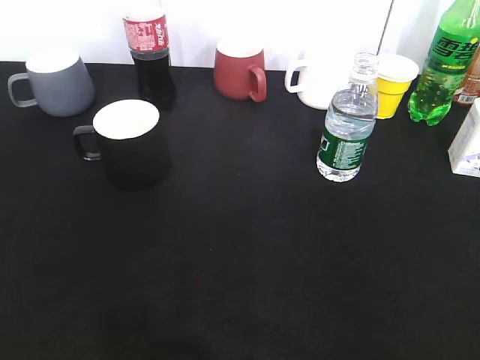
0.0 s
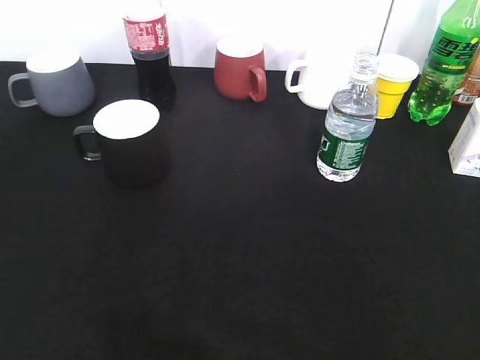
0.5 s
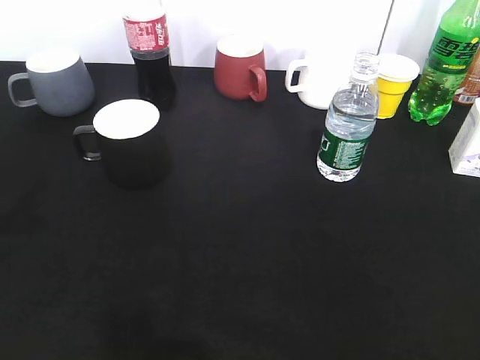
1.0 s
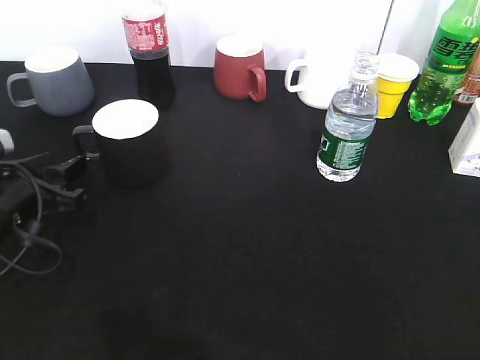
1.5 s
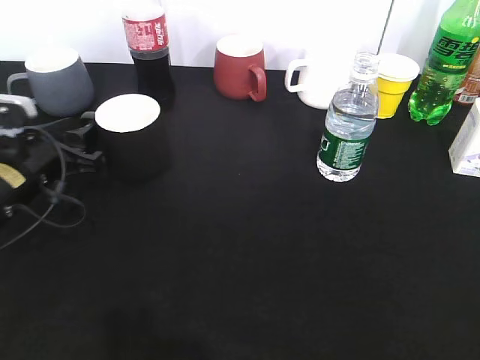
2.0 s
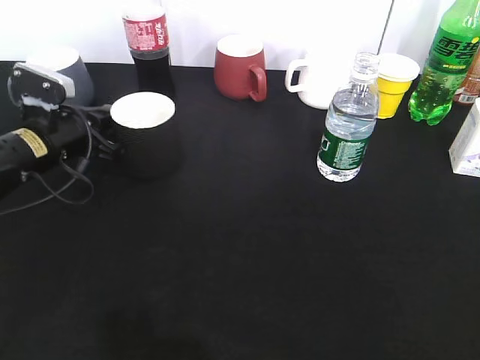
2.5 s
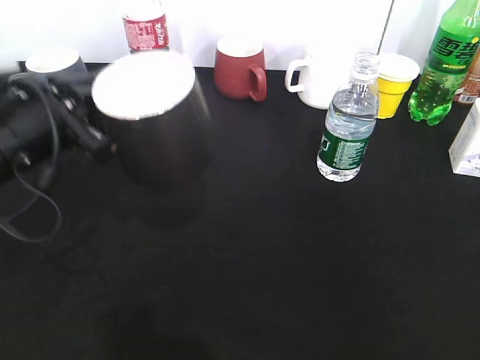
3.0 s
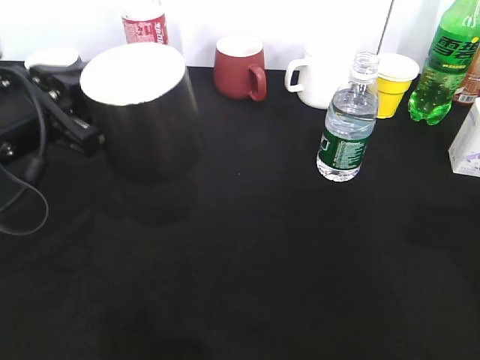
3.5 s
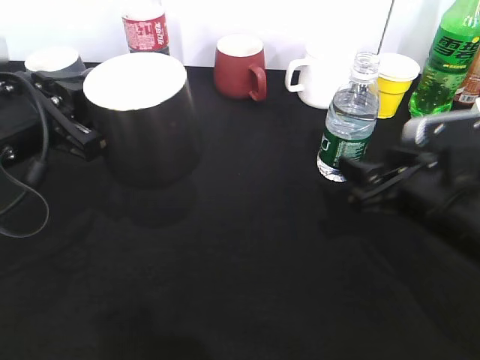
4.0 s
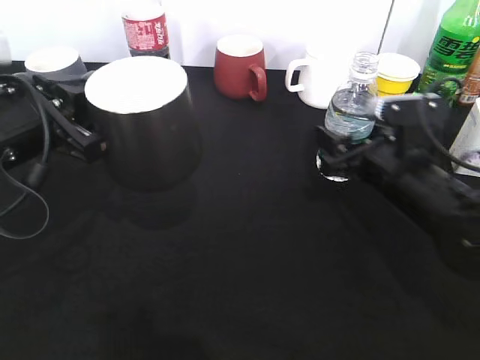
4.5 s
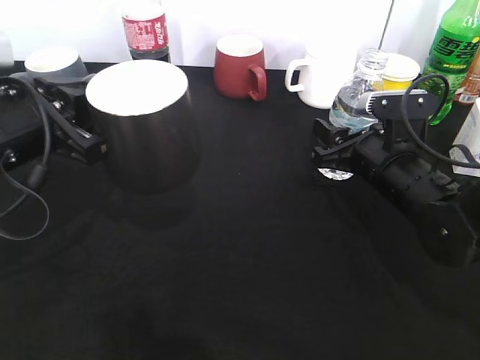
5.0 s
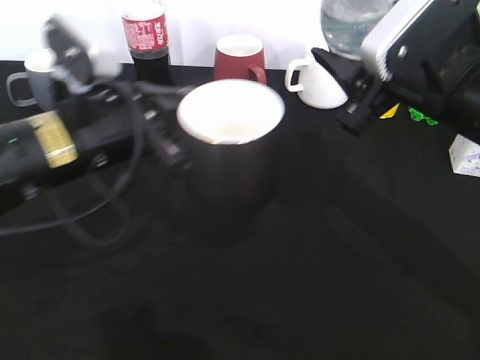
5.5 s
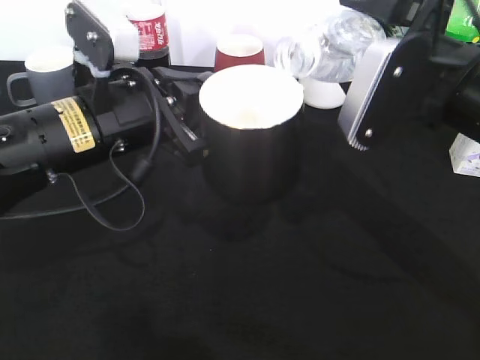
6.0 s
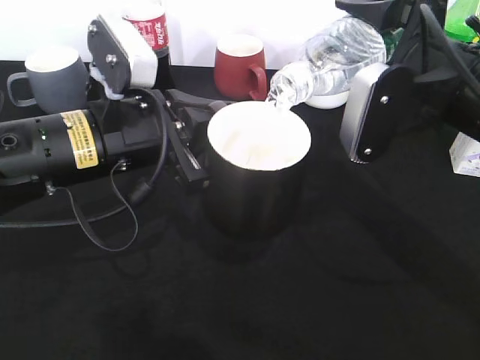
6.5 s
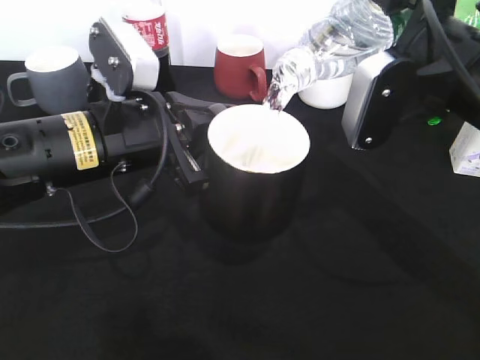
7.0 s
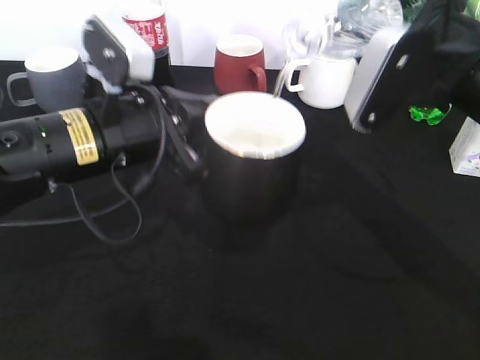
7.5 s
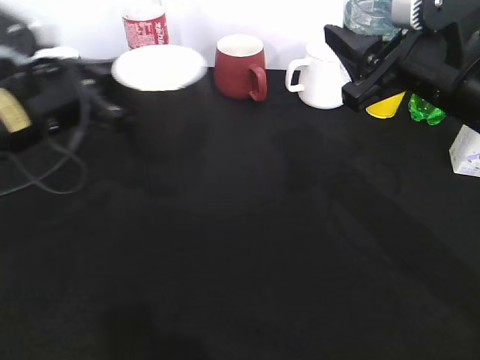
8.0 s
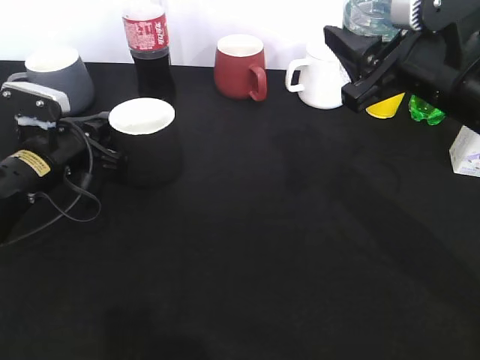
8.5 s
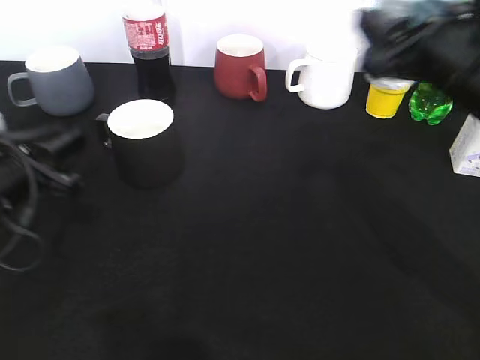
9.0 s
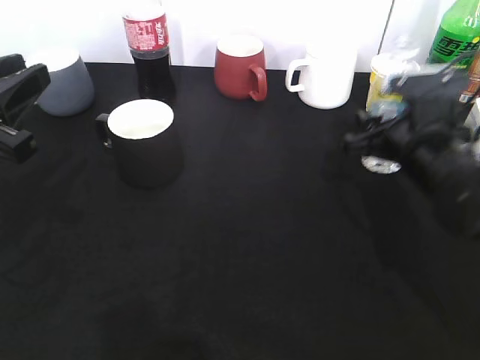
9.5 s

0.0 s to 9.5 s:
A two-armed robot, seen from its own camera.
Step, 0.0 to 2.0 s: Grasp the black cup with left gripper.
Step, 3.5 to 5.0 s: Grasp the bottle with water with right gripper.
Step, 5.5 to 7.5 s: Pour the water from bottle to cup with right gripper.
Step, 8.0 to 8.5 s: Place the black cup on the table with left gripper.
0.0 to 2.0 s: The left gripper shifts some 35 cm forward and downward, and opens its fingers.
2.0 to 4.0 s: The right gripper shifts some 30 cm forward, downward and to the left. The left gripper heads upward and backward, covering approximately 15 cm, and closes.
4.0 to 5.5 s: The left gripper moves to the right, roughly 5 cm, while the right gripper moves upward, approximately 10 cm, and closes.
7.5 to 9.5 s: The left gripper is displaced to the left by some 15 cm, and opens up, while the right gripper shifts approximately 15 cm downward.

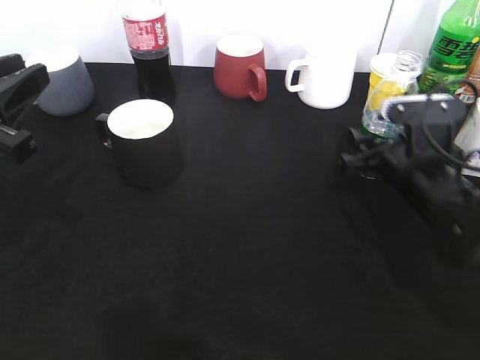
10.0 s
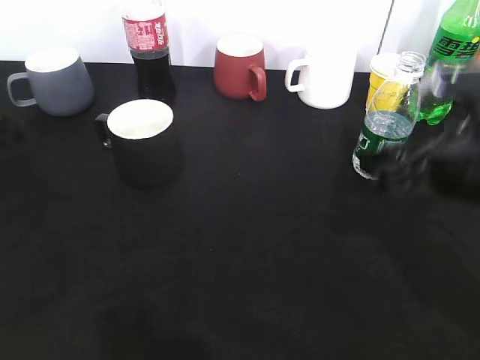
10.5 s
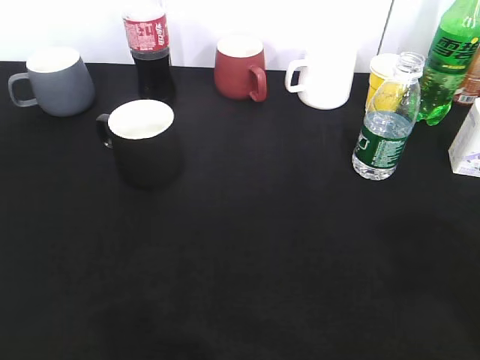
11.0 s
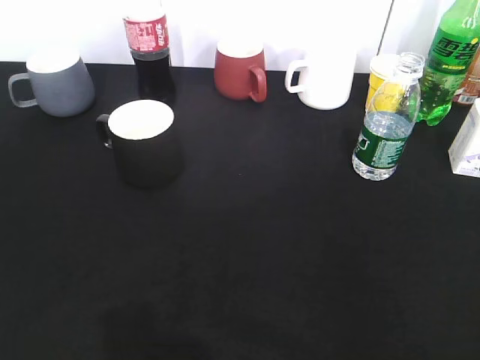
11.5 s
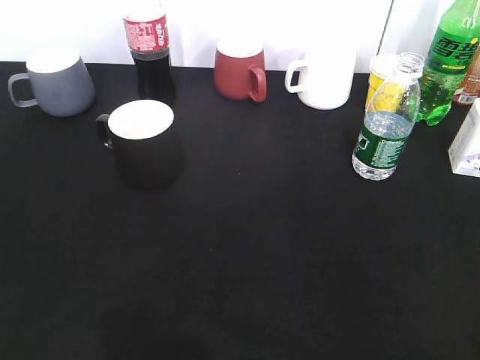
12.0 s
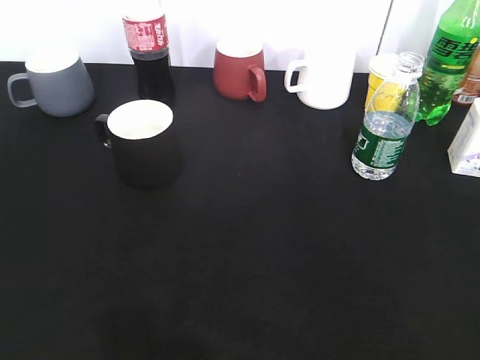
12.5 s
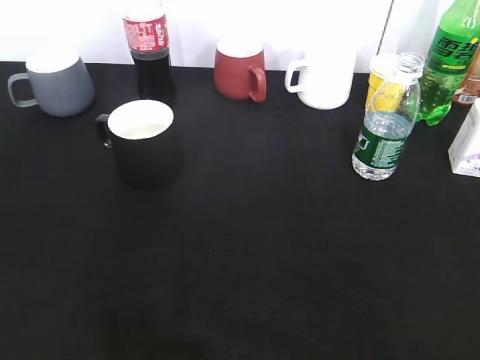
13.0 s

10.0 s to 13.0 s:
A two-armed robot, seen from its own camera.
10.0 to 11.5 s: The left gripper is displaced backward by some 20 cm, while the right gripper shifts roughly 35 cm backward, upward and to the right.

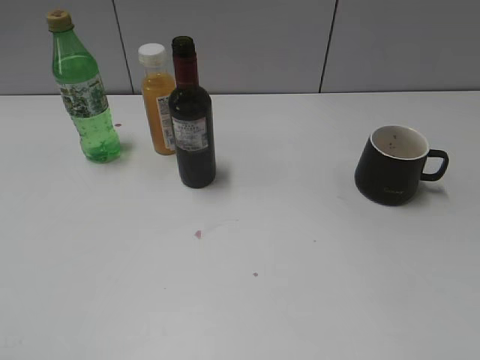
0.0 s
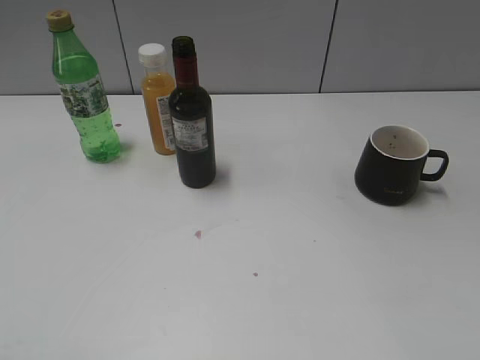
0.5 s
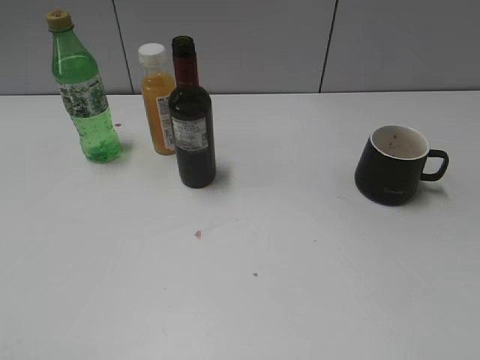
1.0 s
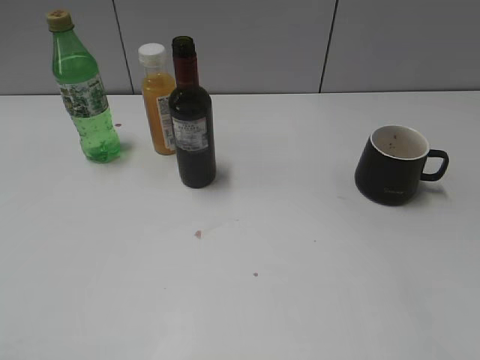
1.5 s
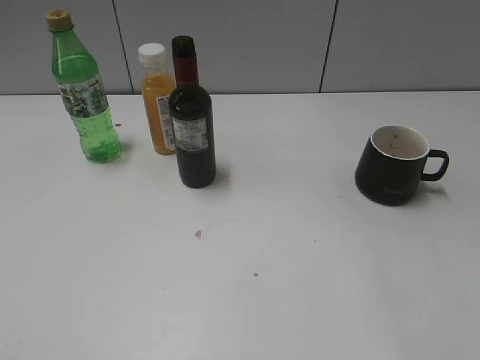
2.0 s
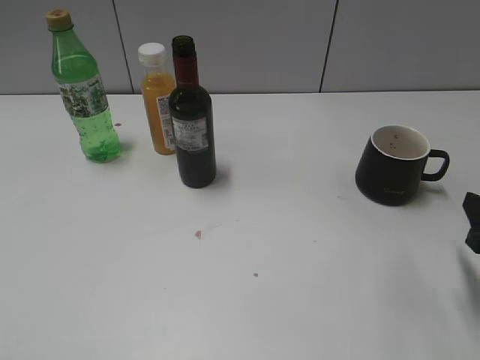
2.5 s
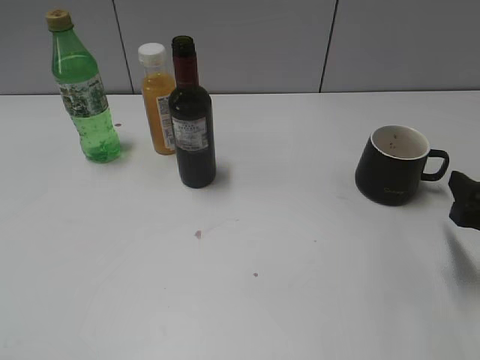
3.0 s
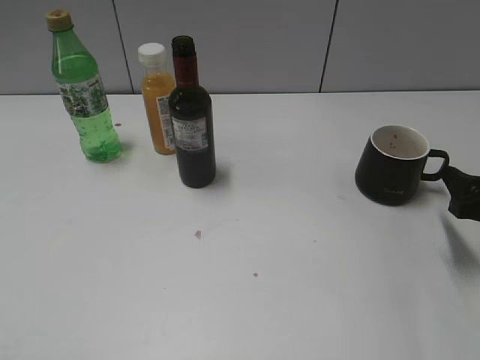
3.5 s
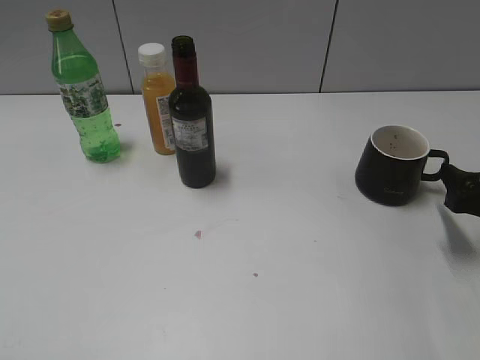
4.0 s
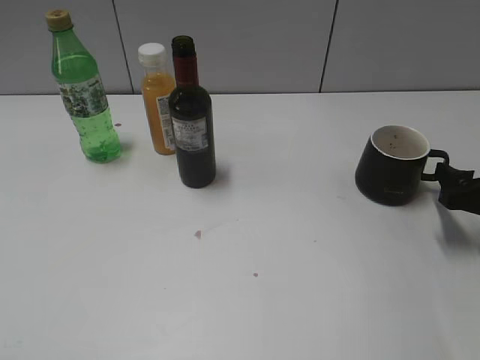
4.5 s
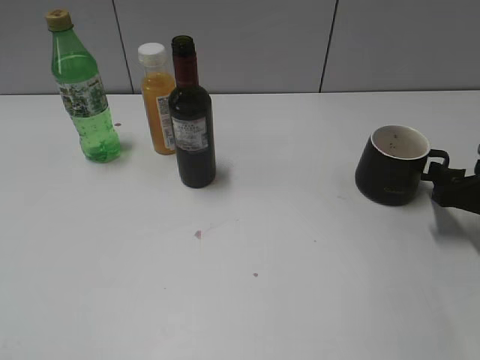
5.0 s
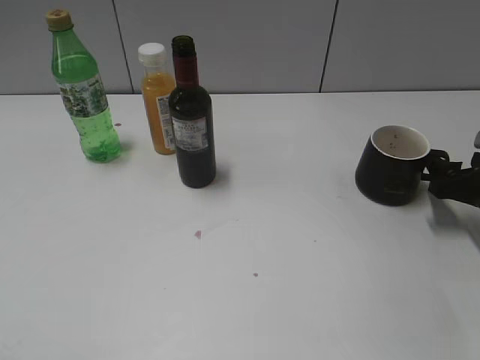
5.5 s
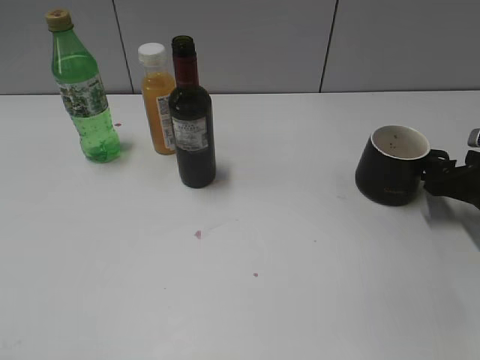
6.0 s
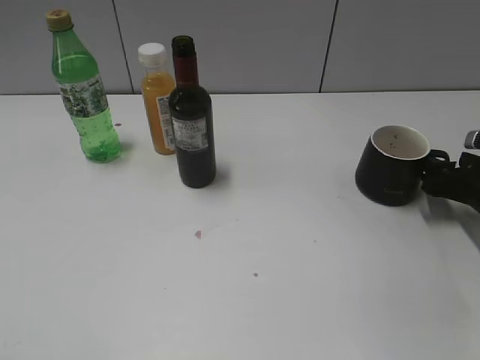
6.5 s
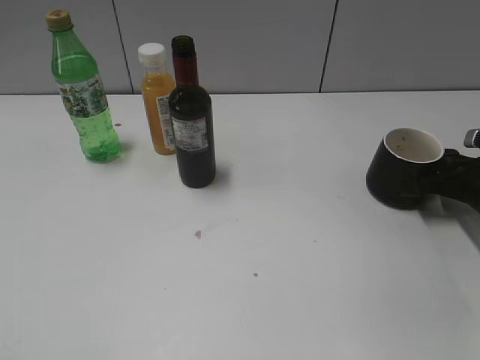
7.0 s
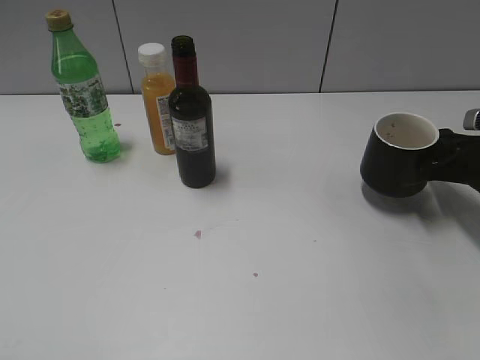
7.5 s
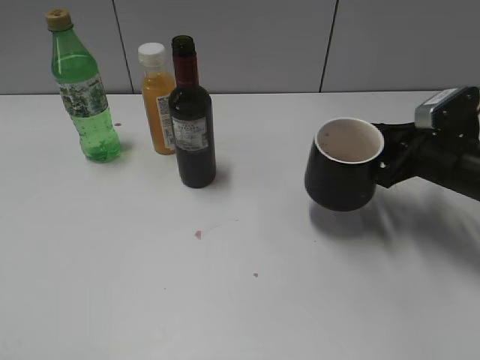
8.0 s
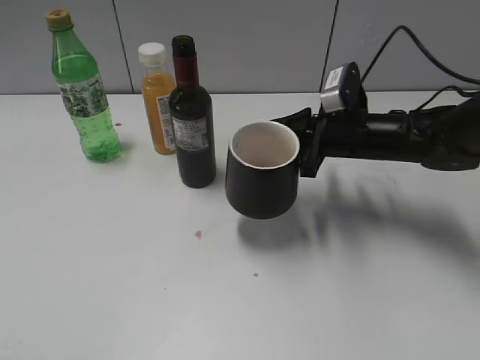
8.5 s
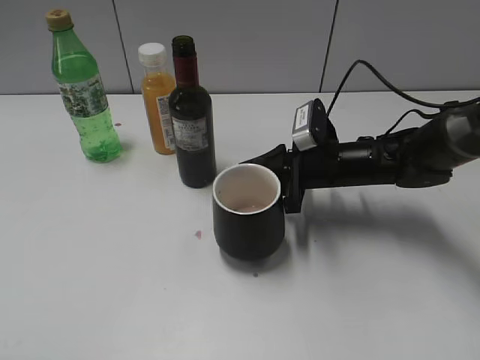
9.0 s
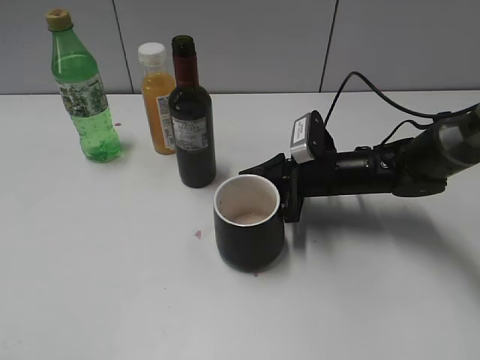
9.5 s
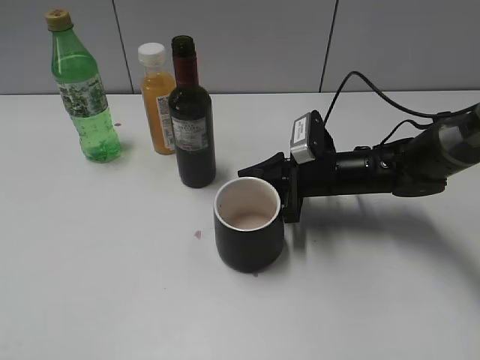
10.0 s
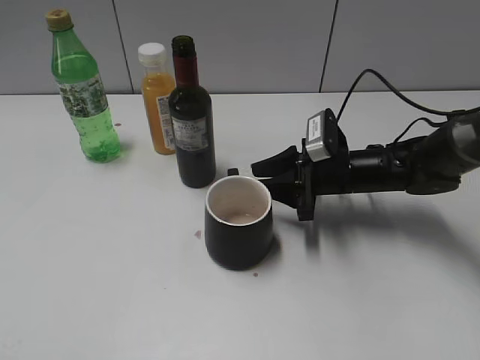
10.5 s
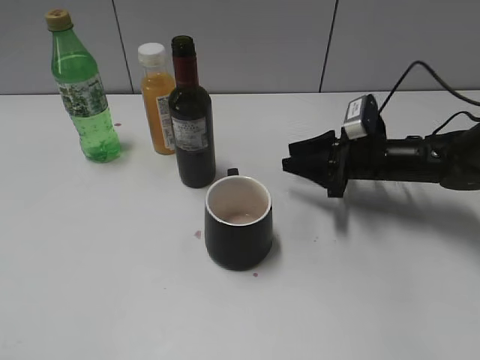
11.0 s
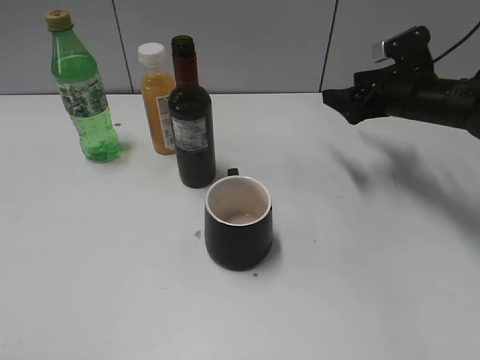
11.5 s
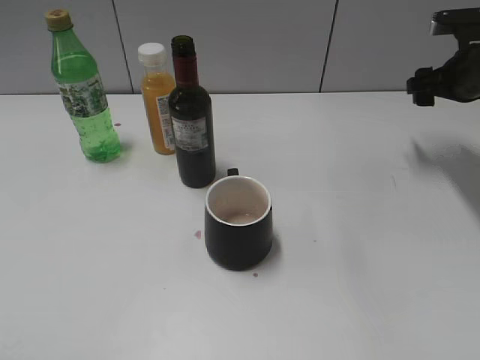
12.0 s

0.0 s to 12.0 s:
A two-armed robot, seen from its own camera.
Step, 2.5 to 7.0 s: Grasp the black cup with right gripper.
Step, 7.5 to 10.5 s: Place the black cup in the center of view with right gripper.
2.0 to 4.0 s: The right gripper heads downward and forward, covering approximately 15 cm.
4.0 to 6.0 s: The right gripper is displaced forward by roughly 5 cm.
6.0 to 8.0 s: The right gripper shifts some 5 cm to the left, and closes its fingers.
8.0 to 10.0 s: The right gripper heads to the left, covering approximately 15 cm.
10.0 to 12.0 s: The right gripper goes roughly 20 cm to the right, upward and forward, and opens its fingers.

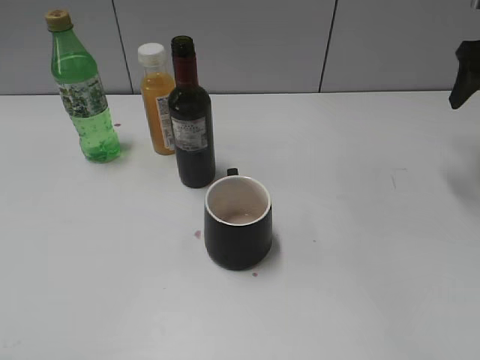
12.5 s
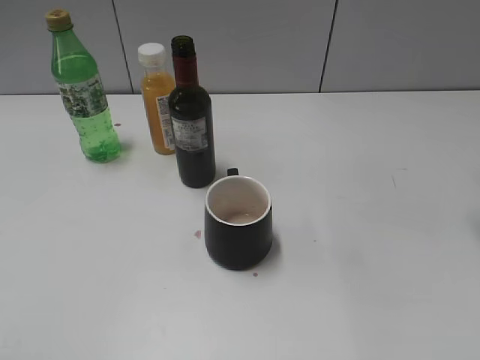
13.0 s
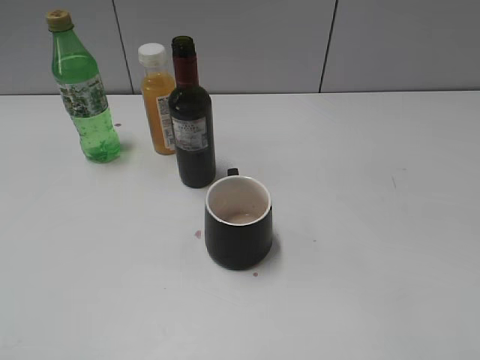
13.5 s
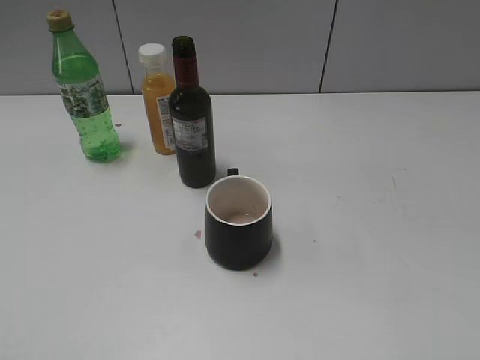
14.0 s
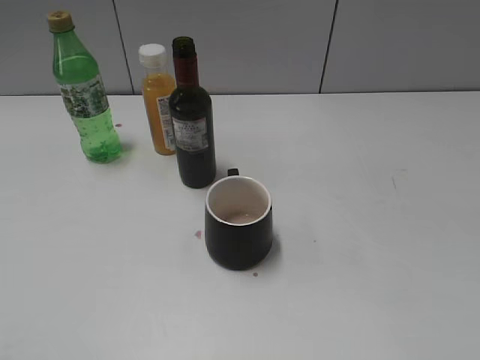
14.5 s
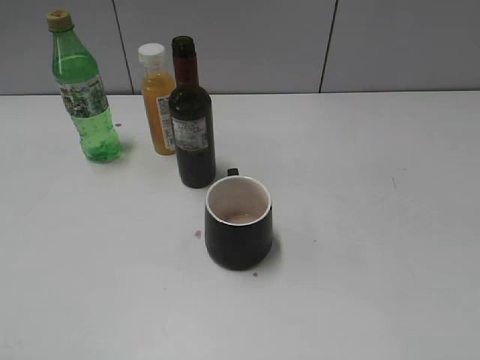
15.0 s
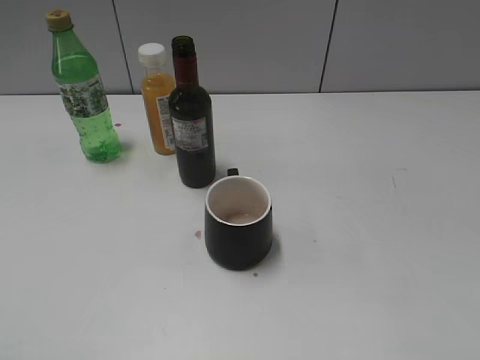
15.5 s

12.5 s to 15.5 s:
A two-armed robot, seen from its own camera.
12.5 to 14.0 s: The right gripper shifts some 35 cm backward.
